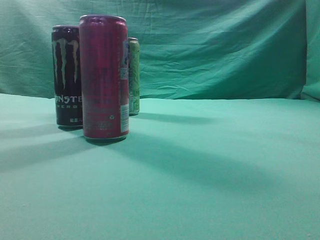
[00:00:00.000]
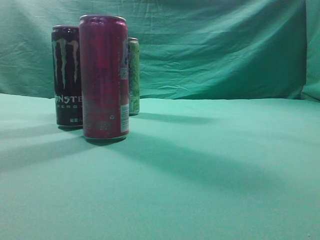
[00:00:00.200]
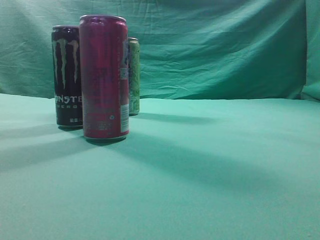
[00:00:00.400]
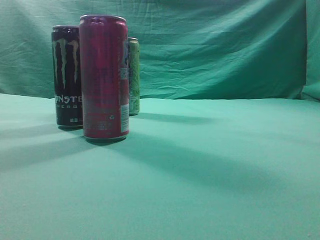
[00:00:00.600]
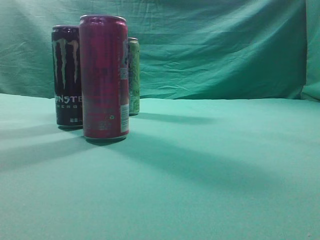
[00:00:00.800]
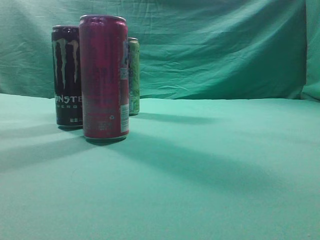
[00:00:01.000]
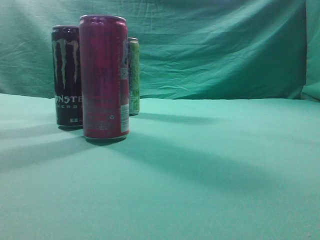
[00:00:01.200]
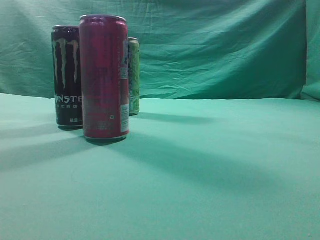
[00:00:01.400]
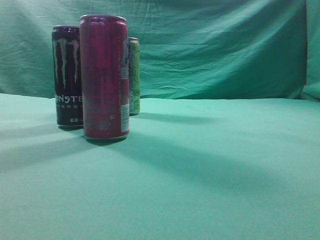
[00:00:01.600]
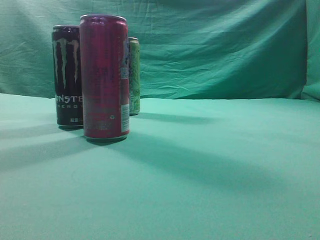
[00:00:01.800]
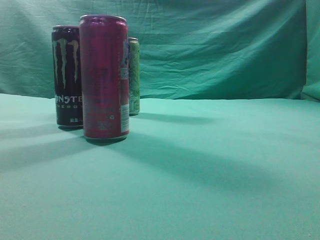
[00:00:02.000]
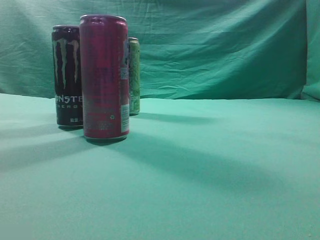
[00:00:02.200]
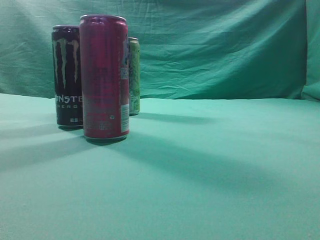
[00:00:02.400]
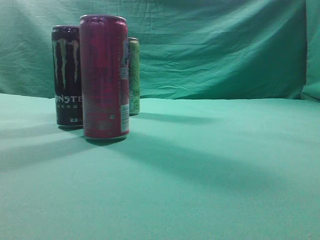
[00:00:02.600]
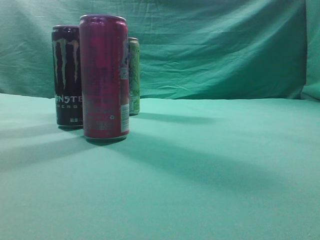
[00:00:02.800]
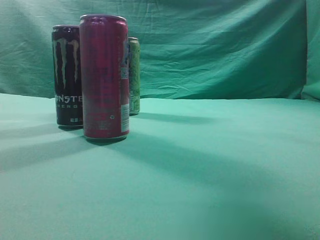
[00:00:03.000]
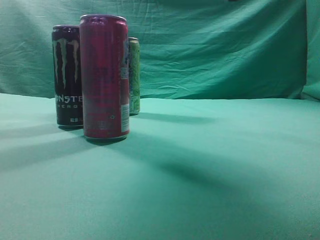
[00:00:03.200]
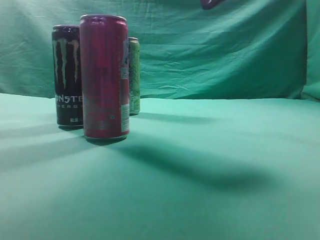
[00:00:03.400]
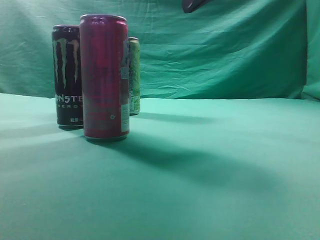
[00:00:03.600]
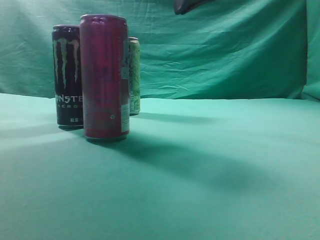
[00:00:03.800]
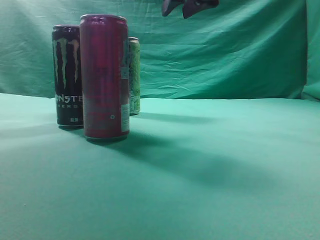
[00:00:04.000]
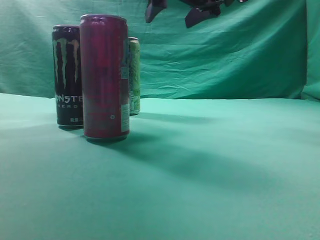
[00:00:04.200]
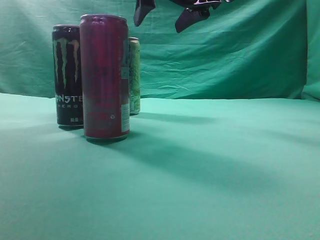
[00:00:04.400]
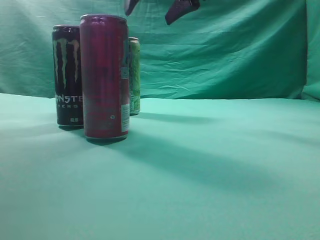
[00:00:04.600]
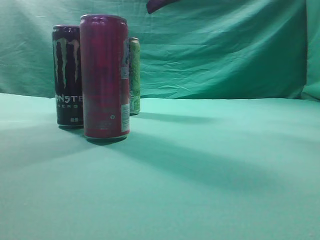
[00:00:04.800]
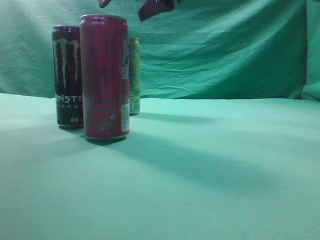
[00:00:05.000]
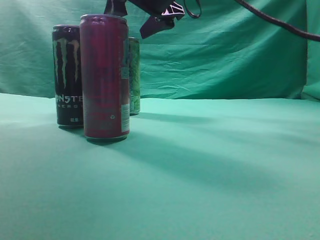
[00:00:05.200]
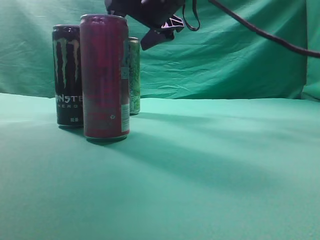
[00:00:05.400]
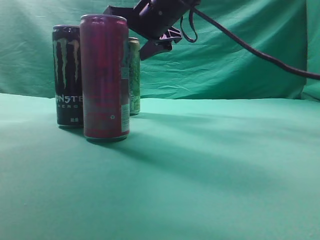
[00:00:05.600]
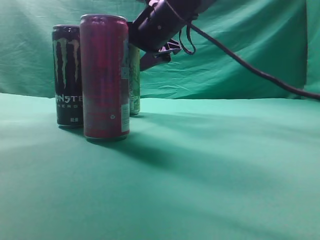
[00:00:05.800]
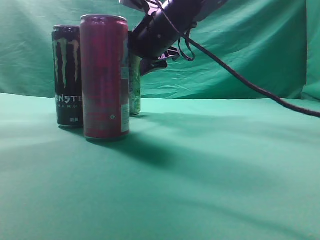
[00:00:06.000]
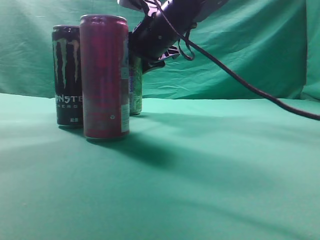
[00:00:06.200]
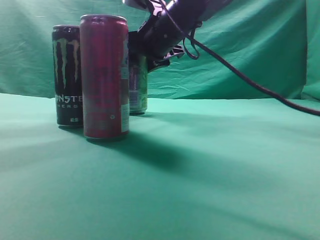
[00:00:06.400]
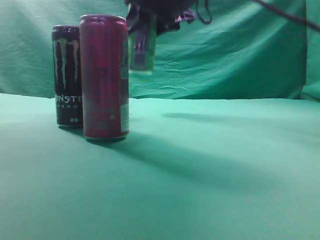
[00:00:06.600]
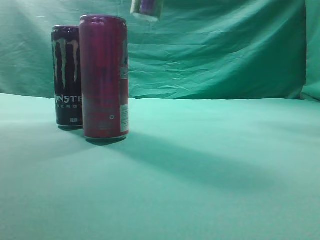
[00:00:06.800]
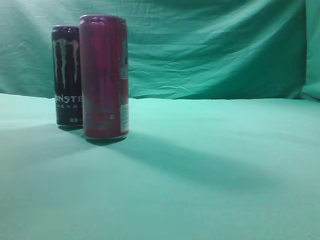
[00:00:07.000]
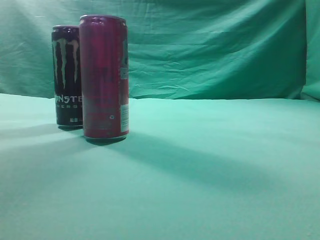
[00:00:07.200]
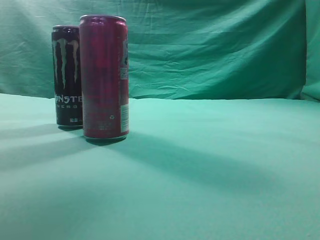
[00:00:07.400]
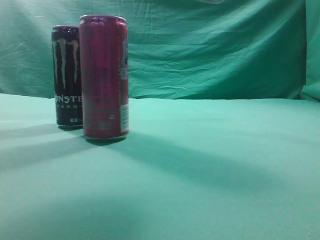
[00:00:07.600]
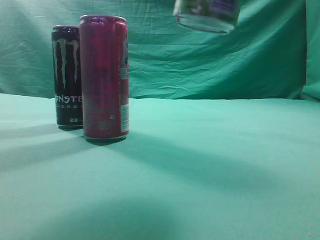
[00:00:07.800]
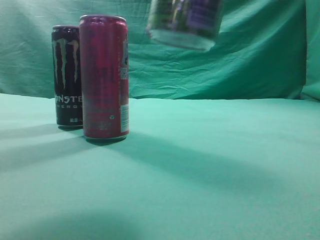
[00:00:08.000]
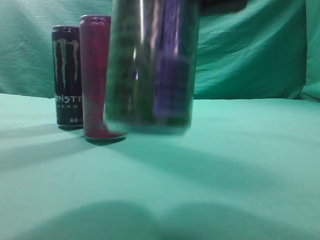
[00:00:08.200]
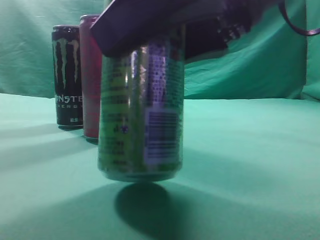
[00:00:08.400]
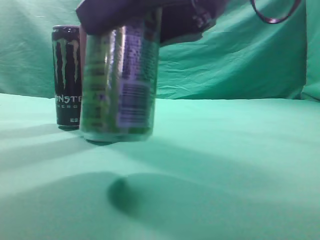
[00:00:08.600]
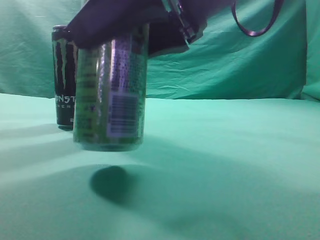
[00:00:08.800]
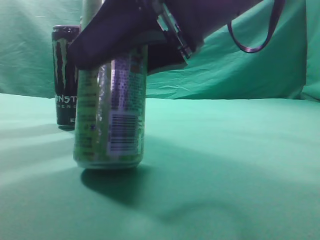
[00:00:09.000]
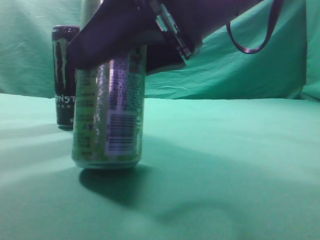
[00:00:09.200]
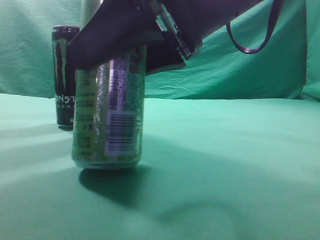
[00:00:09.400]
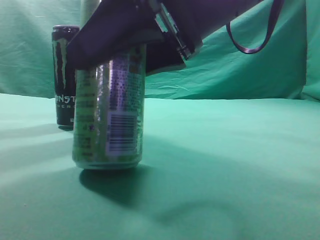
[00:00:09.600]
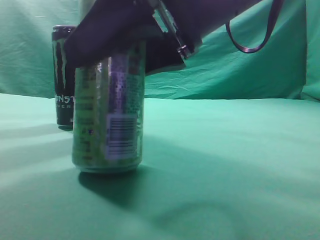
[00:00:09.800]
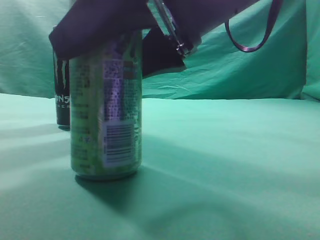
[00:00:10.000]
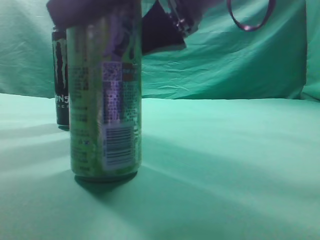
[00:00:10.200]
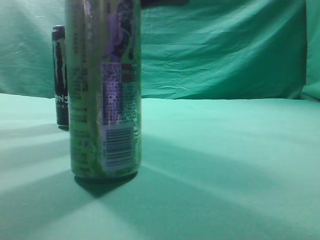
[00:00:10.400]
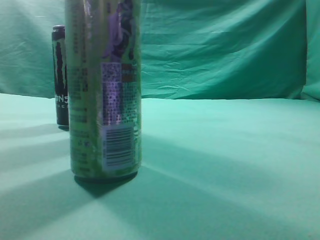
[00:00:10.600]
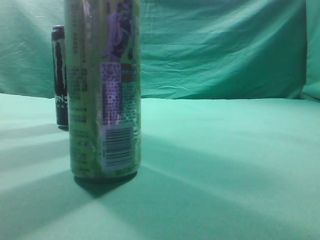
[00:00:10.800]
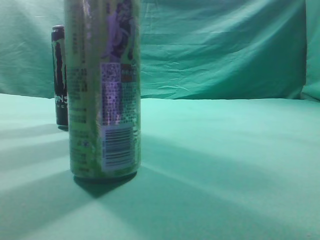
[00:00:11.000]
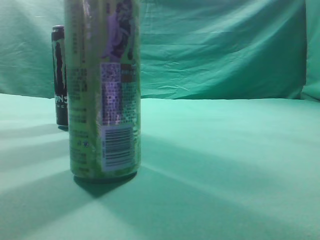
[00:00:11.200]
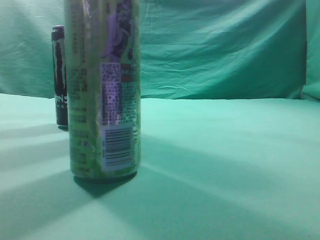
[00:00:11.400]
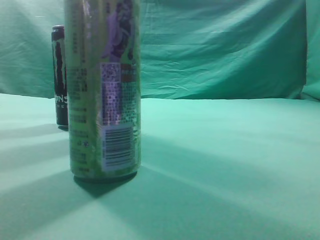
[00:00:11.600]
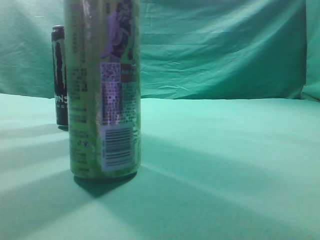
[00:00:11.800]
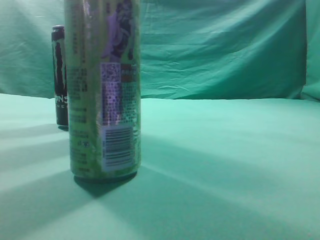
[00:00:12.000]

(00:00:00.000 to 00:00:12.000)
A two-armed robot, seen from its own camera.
Task of the whole recording: move one drink among three beverages.
Step, 00:00:00.000 - 00:00:06.400: Grasp the beverage bottle placed at the back of the desk.
Step, 00:00:06.600 - 00:00:10.400: Place the beverage bottle to the front of the table.
00:00:01.600 - 00:00:03.000: The right gripper moves forward and to the left, some 20 cm.
00:00:03.000 - 00:00:04.400: The right gripper travels forward and to the left by roughly 20 cm, and opens its fingers.
00:00:04.400 - 00:00:06.000: The right gripper goes roughly 10 cm downward.
00:00:06.000 - 00:00:07.600: The right gripper heads backward, to the right and upward, covering some 30 cm.
00:00:07.600 - 00:00:09.000: The right gripper shifts about 15 cm downward and to the left.
00:00:09.000 - 00:00:10.400: The right gripper travels upward by roughly 5 cm.
00:00:10.400 - 00:00:12.000: The right gripper heads upward, to the right and backward, covering approximately 20 cm, and closes up.
